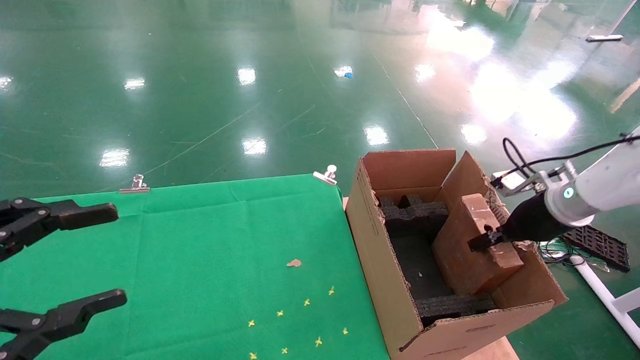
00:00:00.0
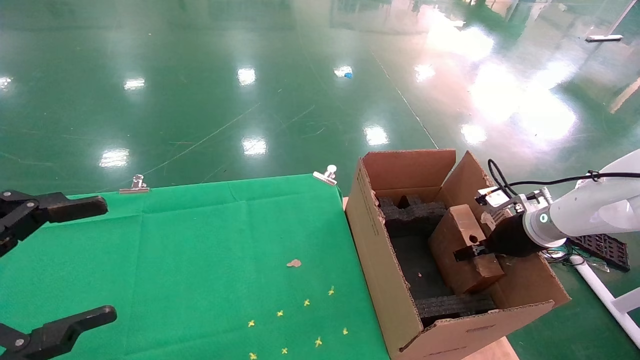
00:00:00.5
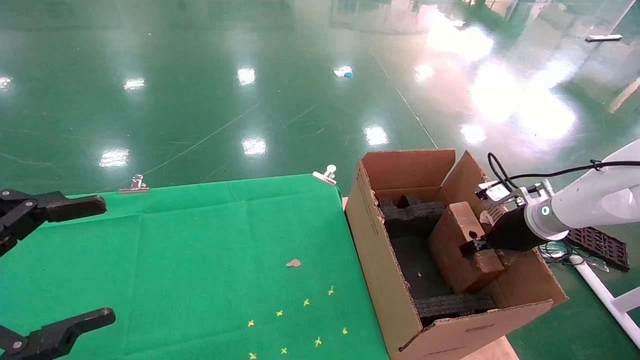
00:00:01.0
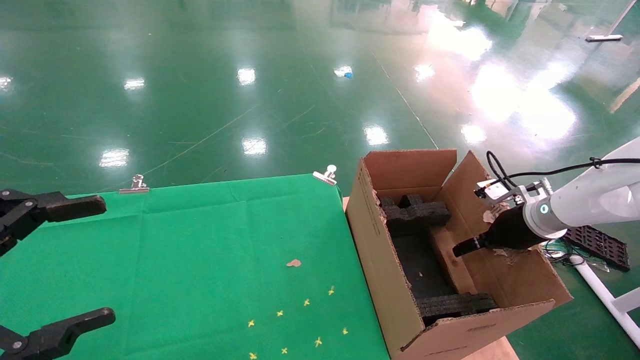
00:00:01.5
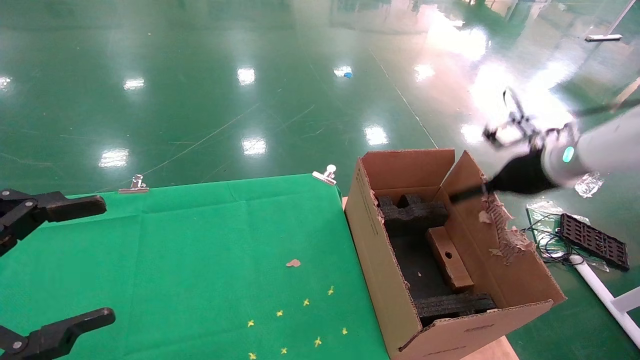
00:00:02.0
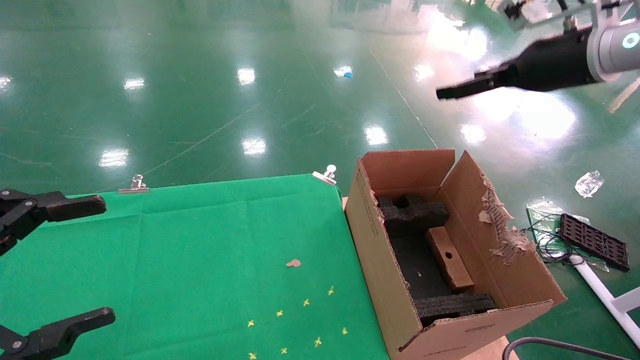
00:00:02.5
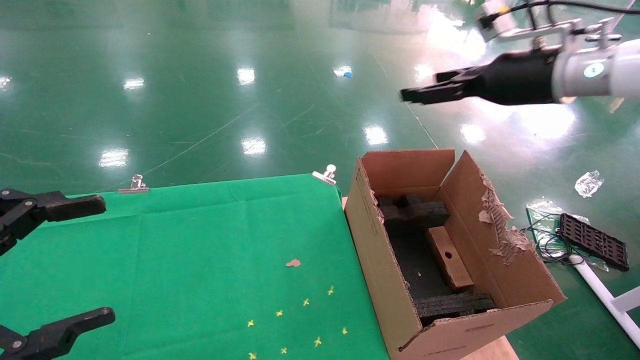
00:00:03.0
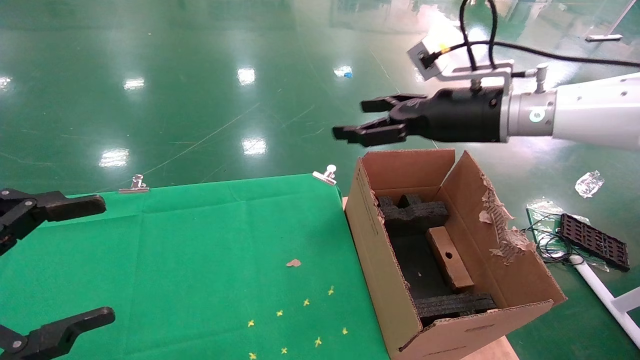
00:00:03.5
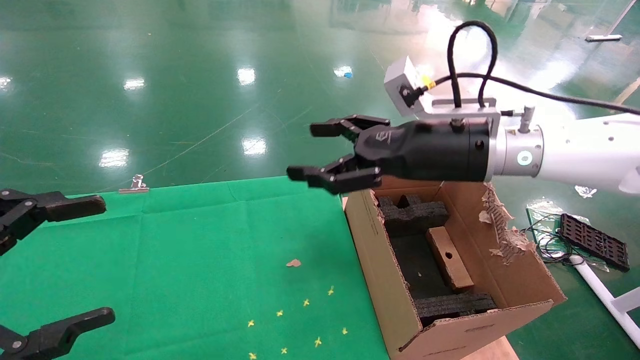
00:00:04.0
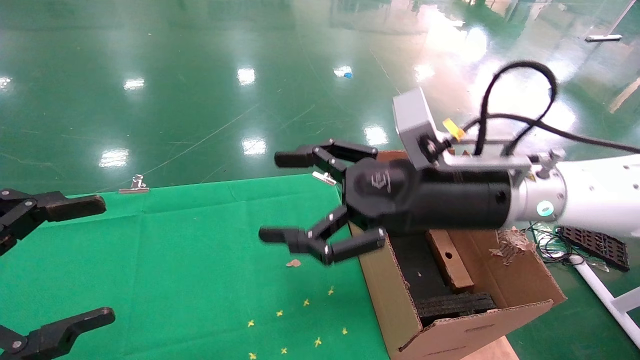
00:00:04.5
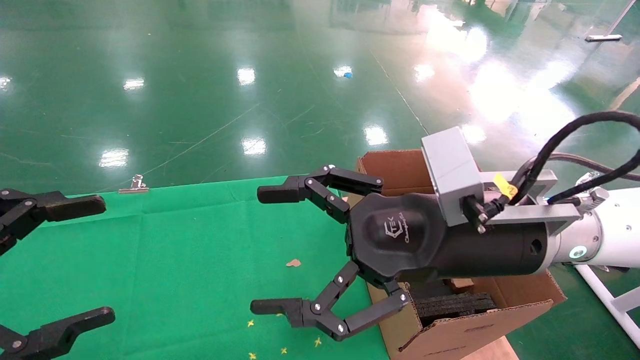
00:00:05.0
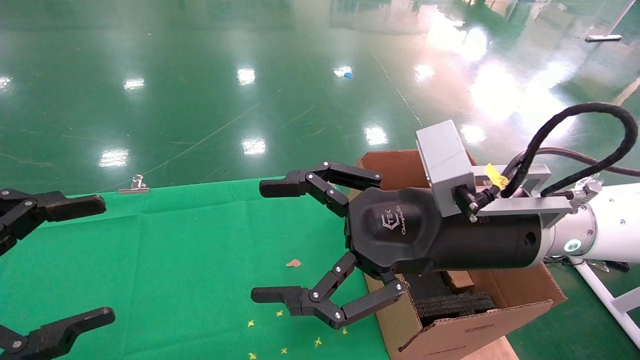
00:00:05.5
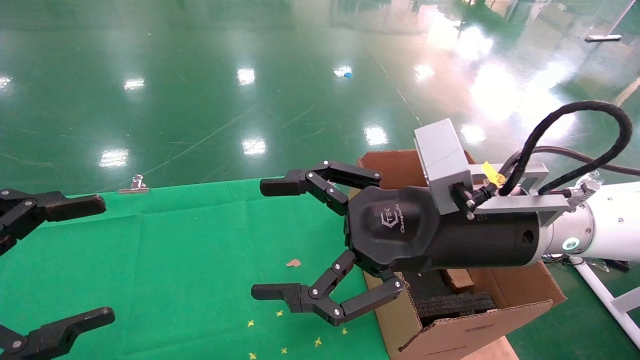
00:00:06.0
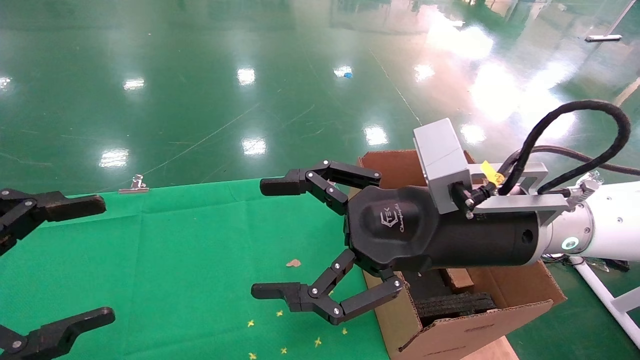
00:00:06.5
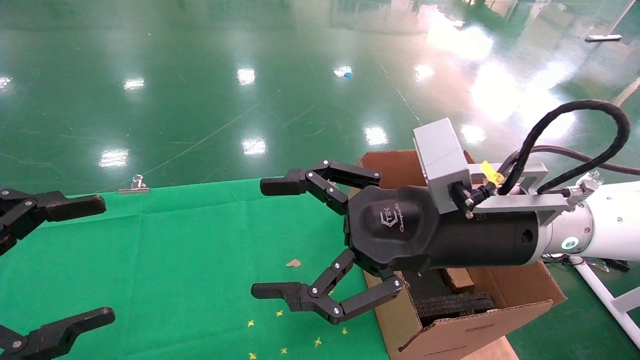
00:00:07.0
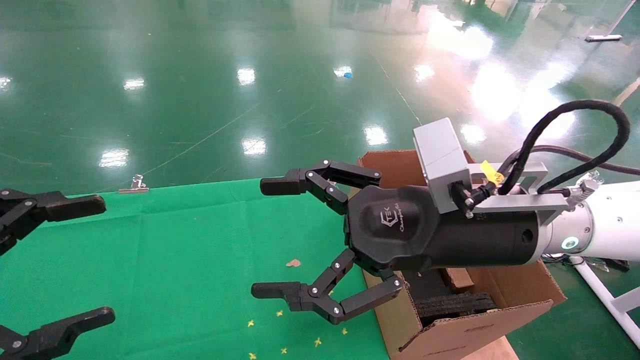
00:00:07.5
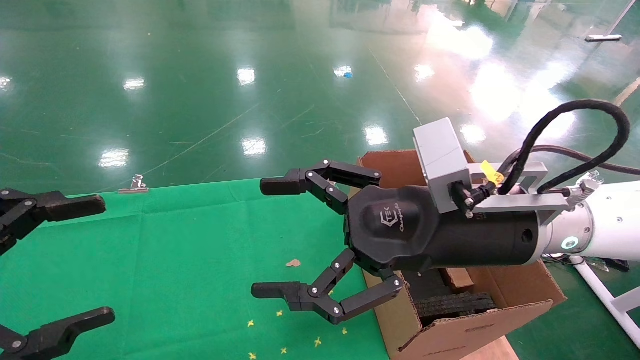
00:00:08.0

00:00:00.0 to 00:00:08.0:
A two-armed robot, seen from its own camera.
Task of the whole recording: using a robotic arm to pick up a cardboard box and palace it the carton.
00:00:00.0 to 00:00:02.0: The left gripper opens, while the right gripper is displaced upward by some 10 cm, and opens up.
00:00:02.0 to 00:00:04.0: The right gripper goes roughly 20 cm to the left.
00:00:04.0 to 00:00:06.0: The right gripper is displaced backward by roughly 10 cm.
00:00:06.0 to 00:00:08.0: Both grippers stay put.
